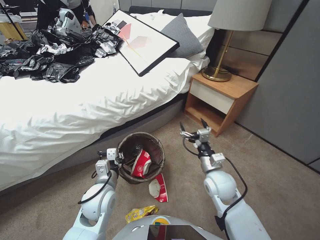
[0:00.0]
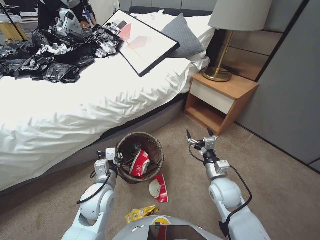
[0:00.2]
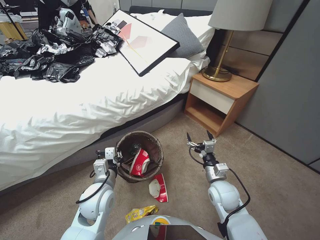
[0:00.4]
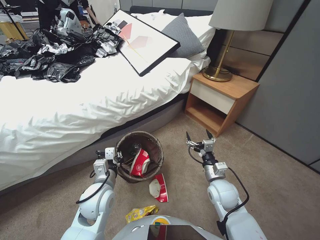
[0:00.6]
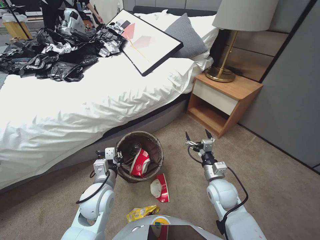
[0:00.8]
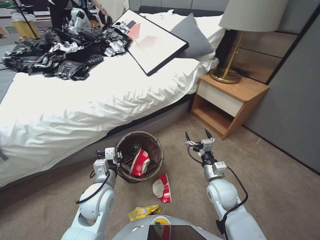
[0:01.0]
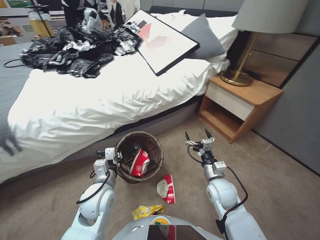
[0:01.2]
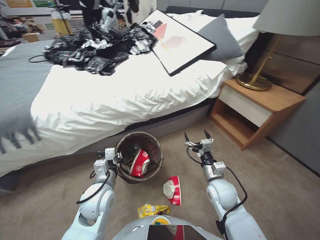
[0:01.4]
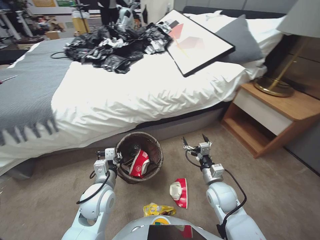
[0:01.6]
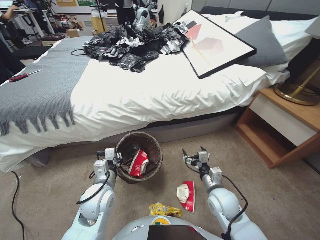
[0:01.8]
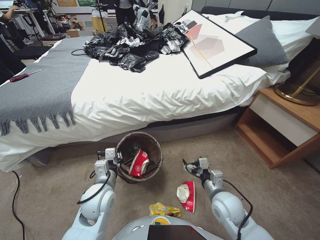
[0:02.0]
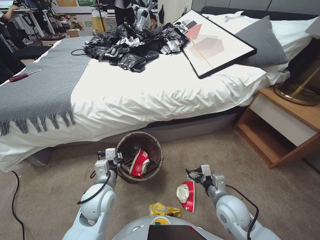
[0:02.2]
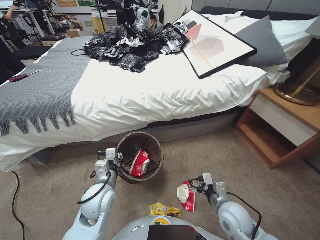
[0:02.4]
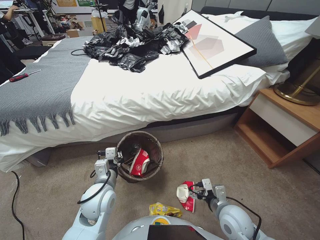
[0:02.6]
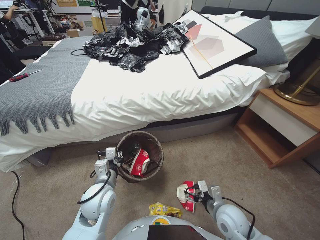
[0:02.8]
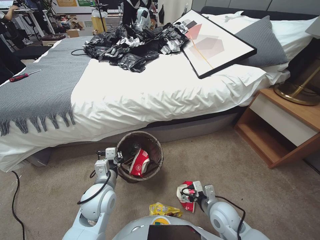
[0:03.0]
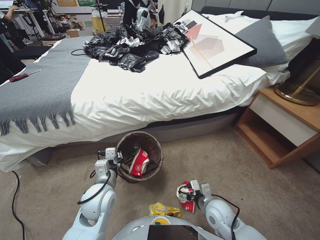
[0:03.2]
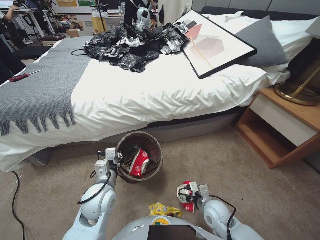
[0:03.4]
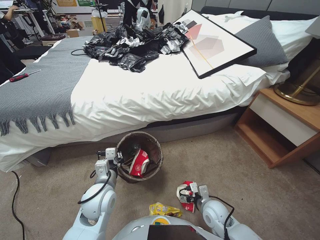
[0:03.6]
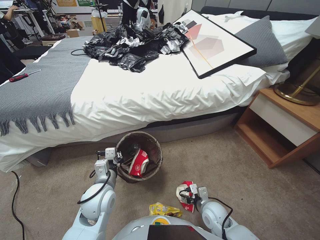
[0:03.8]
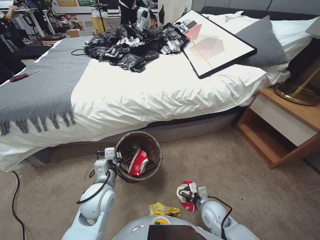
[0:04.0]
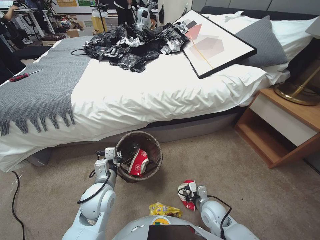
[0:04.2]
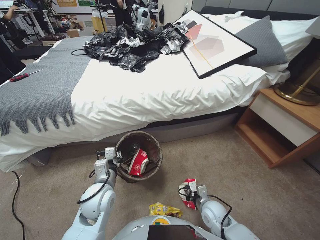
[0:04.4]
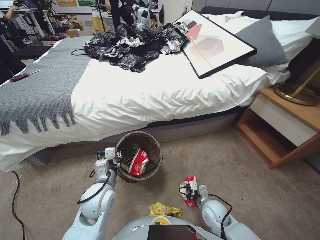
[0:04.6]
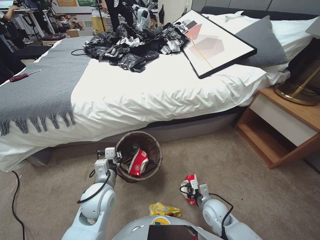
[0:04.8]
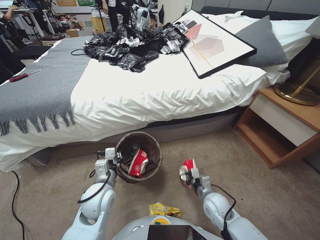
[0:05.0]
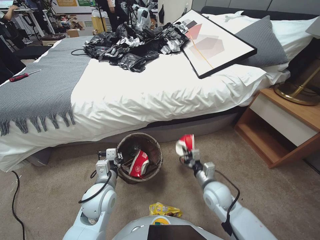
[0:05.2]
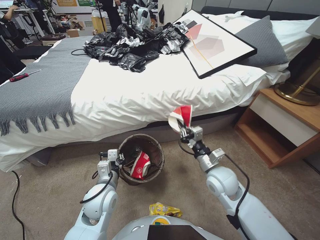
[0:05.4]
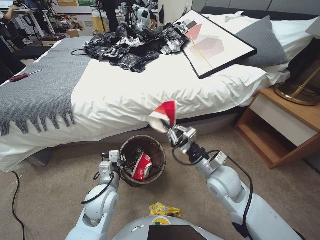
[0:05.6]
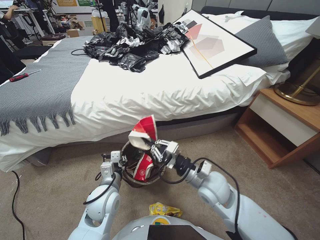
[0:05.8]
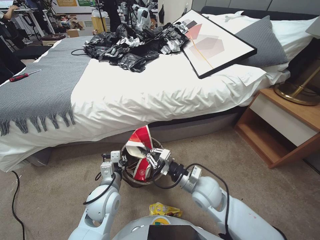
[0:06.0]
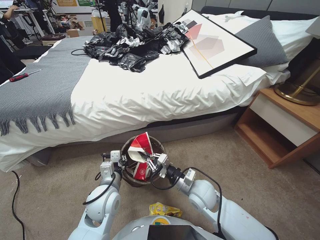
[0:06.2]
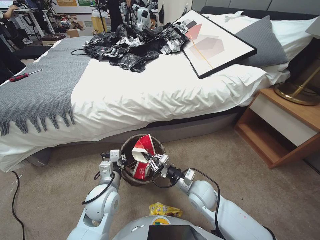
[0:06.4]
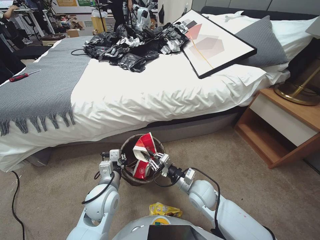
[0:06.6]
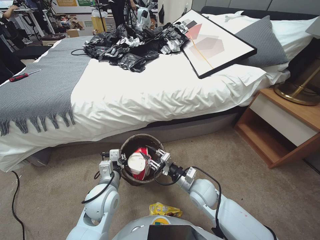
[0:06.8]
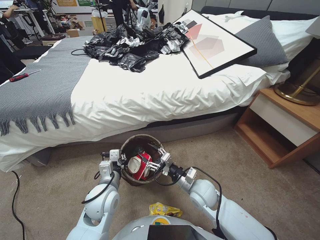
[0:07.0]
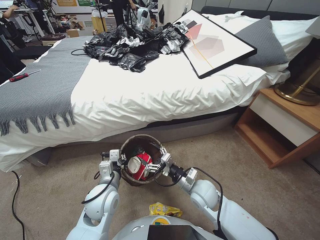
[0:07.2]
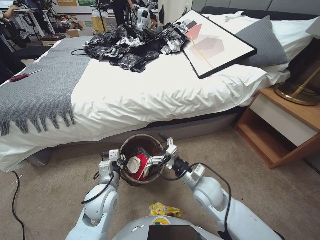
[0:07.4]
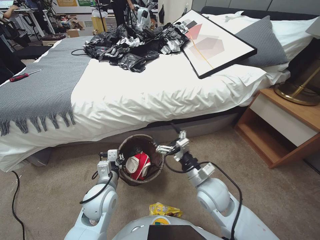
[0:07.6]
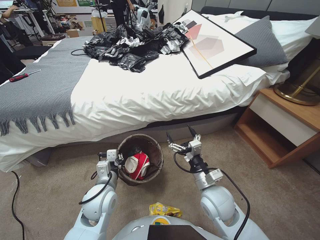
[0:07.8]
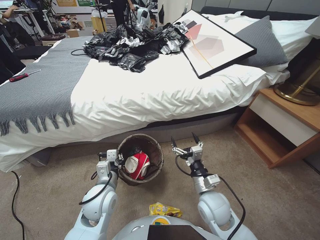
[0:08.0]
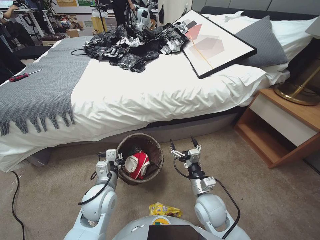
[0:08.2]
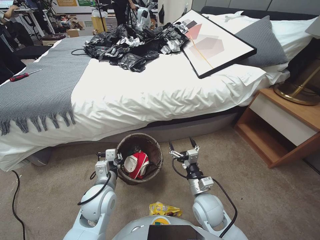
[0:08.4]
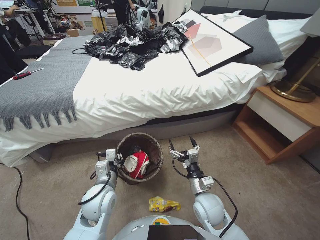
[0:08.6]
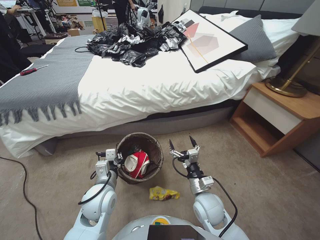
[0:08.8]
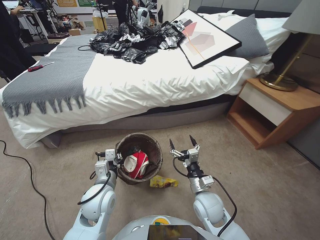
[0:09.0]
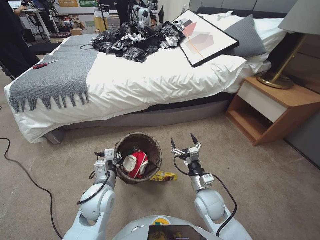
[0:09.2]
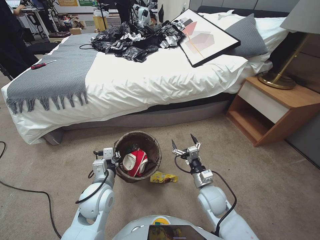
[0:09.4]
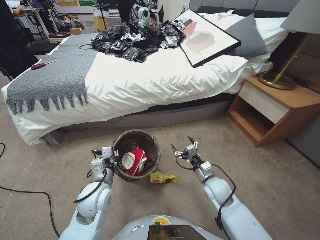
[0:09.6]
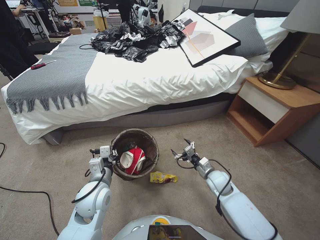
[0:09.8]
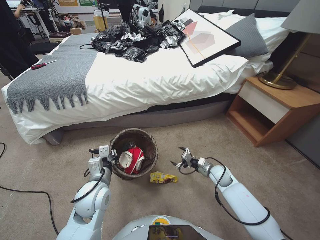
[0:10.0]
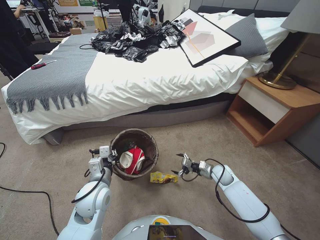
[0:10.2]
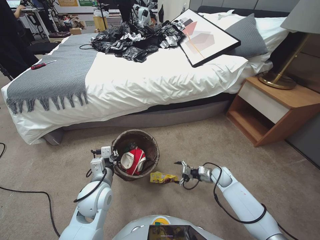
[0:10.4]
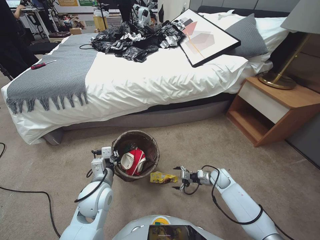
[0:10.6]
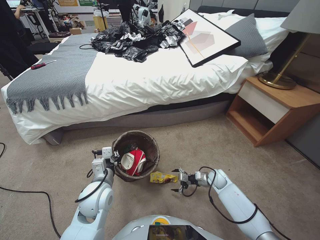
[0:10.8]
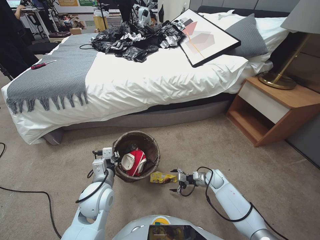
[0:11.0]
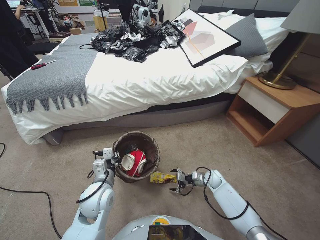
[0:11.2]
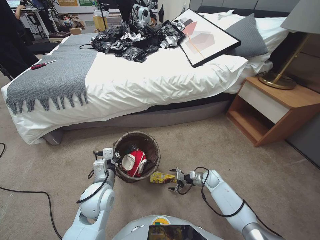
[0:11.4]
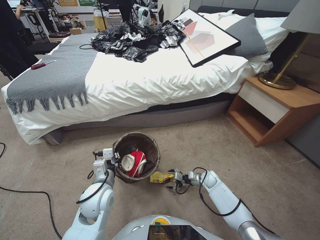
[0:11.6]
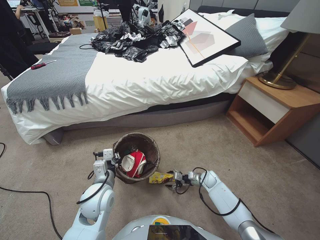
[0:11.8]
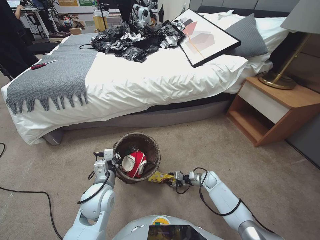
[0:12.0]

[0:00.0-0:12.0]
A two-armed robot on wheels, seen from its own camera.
Task of the whole recording: Pick up the trash bin, then pick up the garbage from the floor and place it into the trash bin.
0:00.0 to 0:01.6: The right gripper moves downward and to the right, about 10 cm.
0:01.6 to 0:03.0: The right gripper travels backward by about 10 cm.
0:03.0 to 0:04.4: The right gripper travels downward by some 10 cm, and closes.
0:04.4 to 0:06.0: The right gripper is displaced upward by roughly 20 cm.
0:06.0 to 0:07.6: The right gripper travels downward and back again, roughly 10 cm each way, and opens up.
0:07.6 to 0:09.0: The right gripper heads downward, covering approximately 10 cm.
0:09.0 to 0:10.4: The right gripper travels forward, to the right and downward by roughly 20 cm.
0:10.4 to 0:12.0: The right gripper goes roughly 10 cm downward, and closes its fingers.

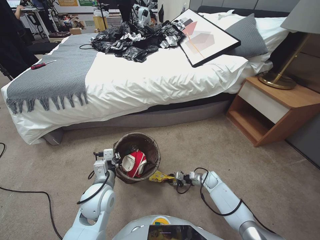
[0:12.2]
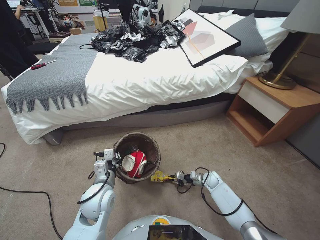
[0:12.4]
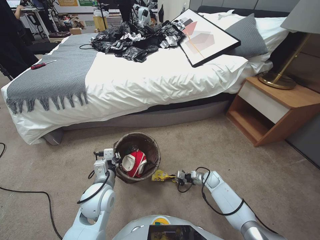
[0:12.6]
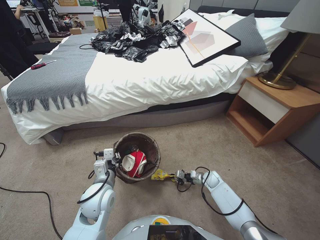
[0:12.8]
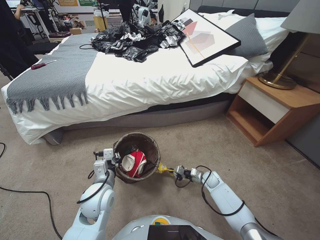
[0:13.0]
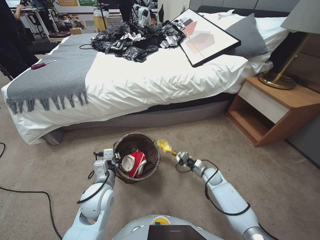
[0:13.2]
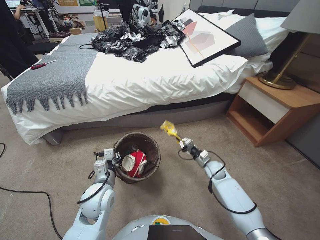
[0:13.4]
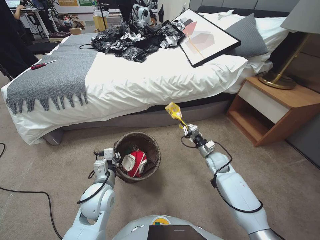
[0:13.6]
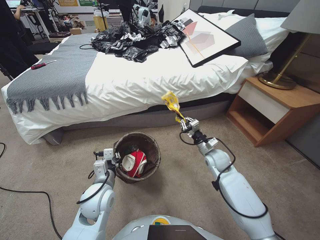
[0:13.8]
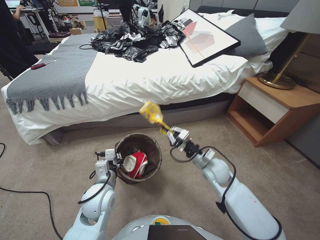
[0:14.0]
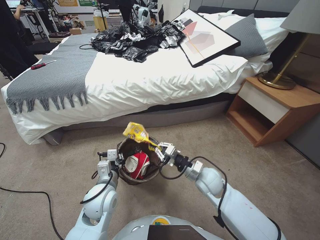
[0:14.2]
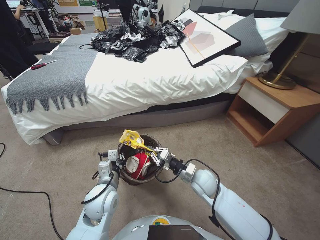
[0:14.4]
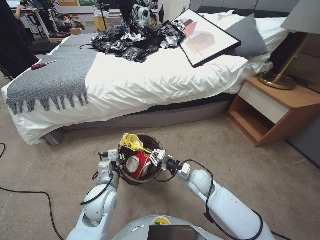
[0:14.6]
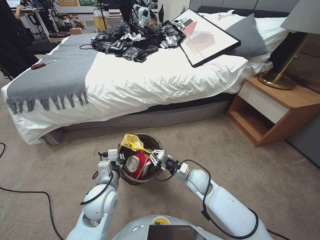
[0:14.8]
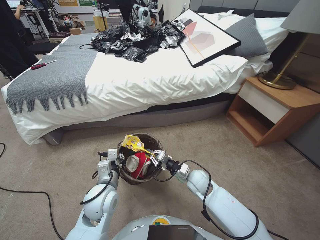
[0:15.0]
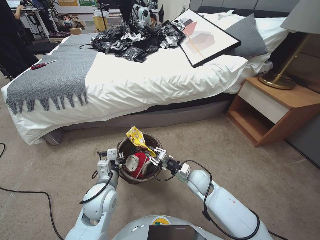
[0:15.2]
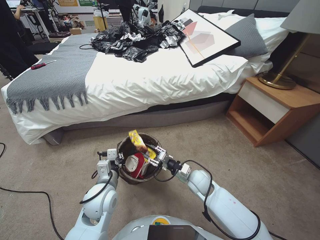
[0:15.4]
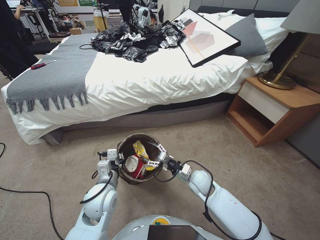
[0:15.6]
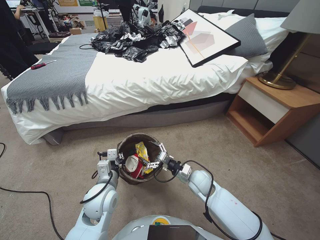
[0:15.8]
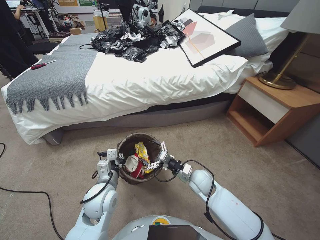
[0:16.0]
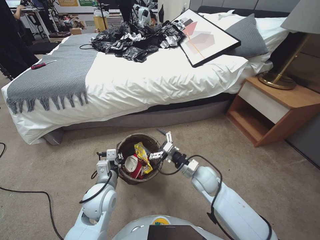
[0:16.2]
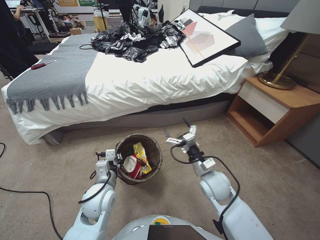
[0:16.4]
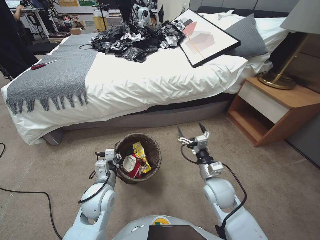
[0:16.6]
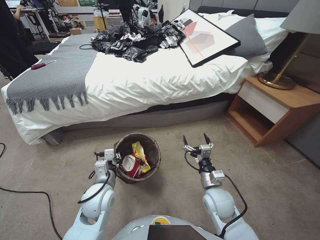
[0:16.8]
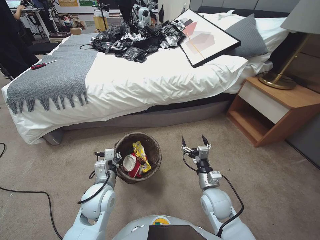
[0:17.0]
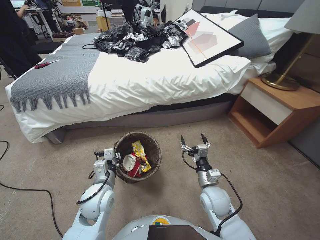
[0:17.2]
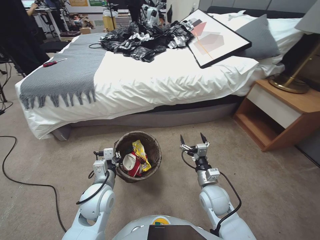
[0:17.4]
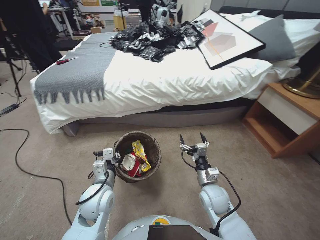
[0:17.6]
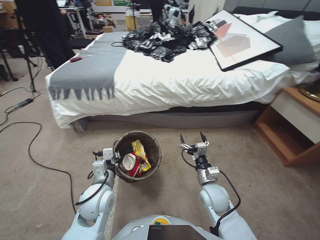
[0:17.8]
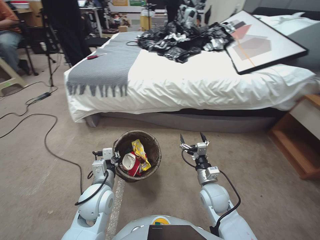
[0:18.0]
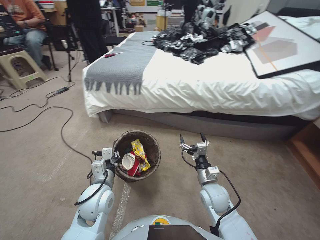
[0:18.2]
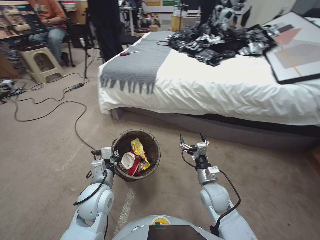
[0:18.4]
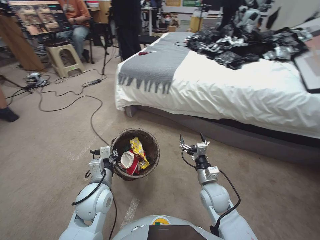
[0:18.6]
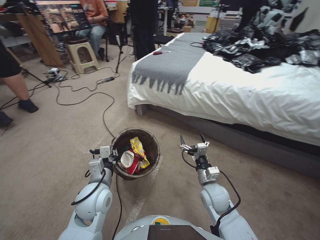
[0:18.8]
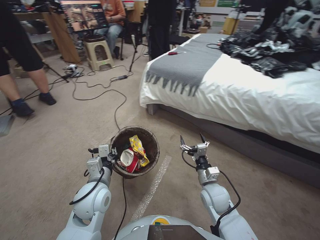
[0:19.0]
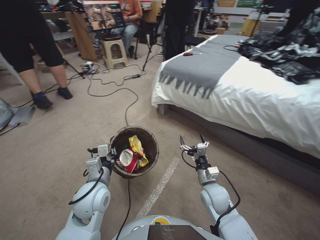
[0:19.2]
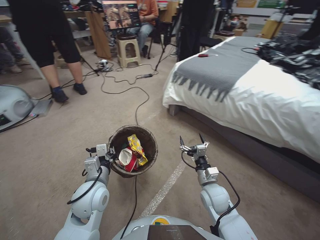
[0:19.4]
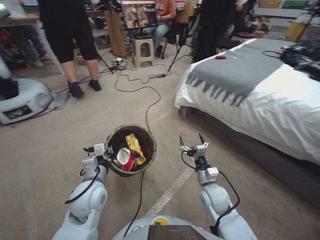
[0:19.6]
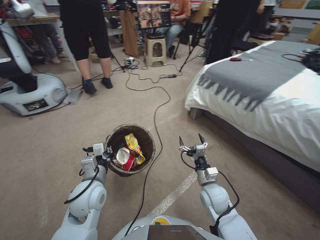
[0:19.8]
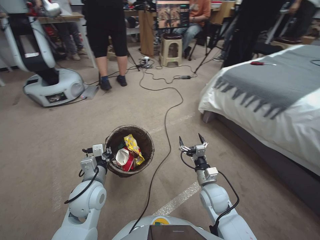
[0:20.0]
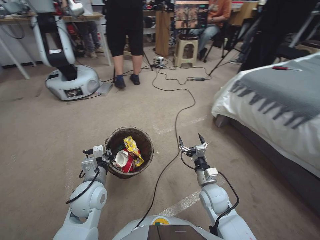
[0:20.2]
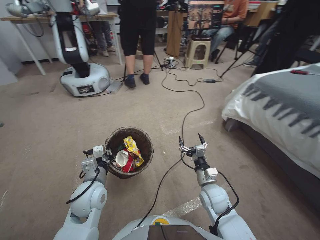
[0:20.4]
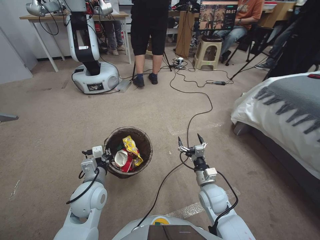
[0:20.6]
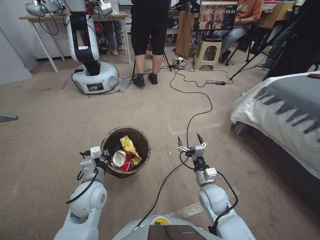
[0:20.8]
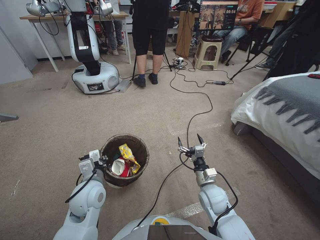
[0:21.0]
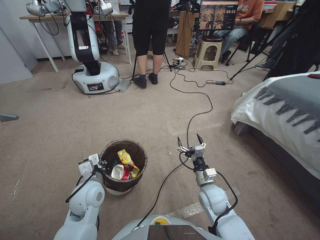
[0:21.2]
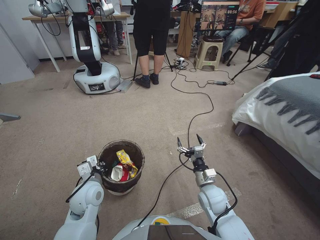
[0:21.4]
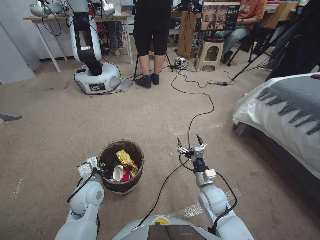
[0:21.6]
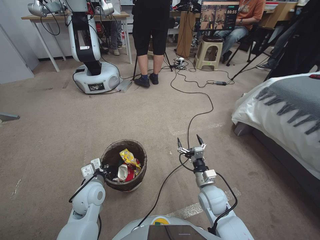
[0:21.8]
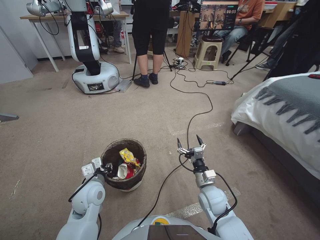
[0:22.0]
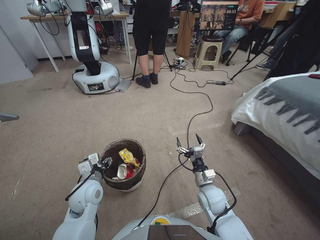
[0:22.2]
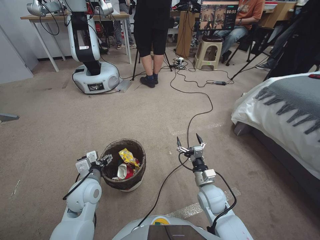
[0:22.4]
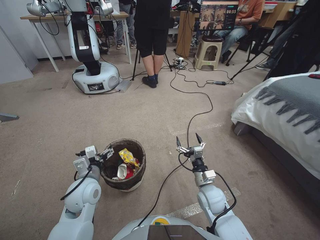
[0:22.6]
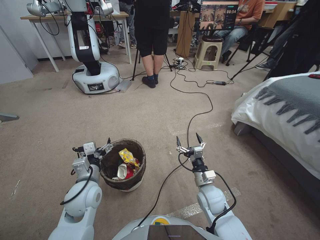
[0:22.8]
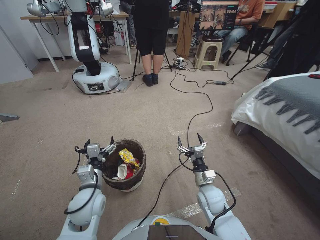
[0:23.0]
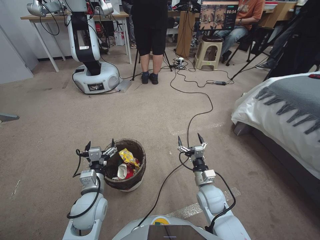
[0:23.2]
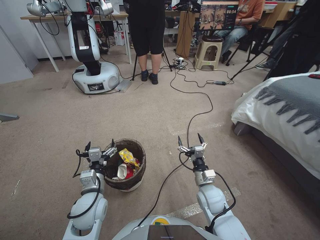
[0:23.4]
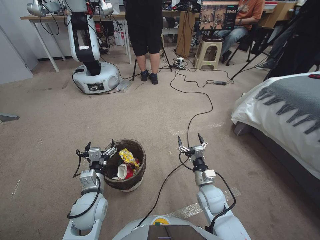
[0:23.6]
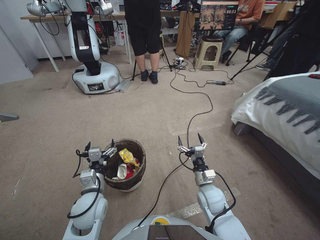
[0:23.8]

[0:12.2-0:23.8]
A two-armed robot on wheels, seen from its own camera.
Task of the whole recording: Pick up the trash bin, then pick up the garbage from the floor and place it into the trash bin.
0:12.2 to 0:13.6: The right gripper shifts some 15 cm upward, and closes its fingers.
0:13.6 to 0:15.0: The right gripper heads to the left and backward, covering about 15 cm.
0:15.0 to 0:16.6: The right gripper goes approximately 10 cm upward and backward, and opens.
0:21.0 to 0:22.4: The left gripper opens up.
